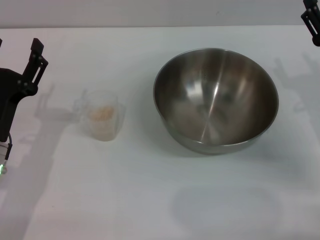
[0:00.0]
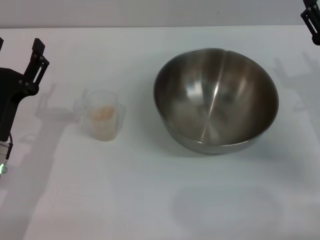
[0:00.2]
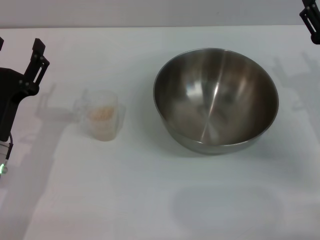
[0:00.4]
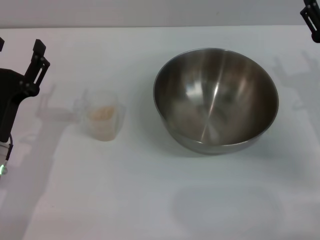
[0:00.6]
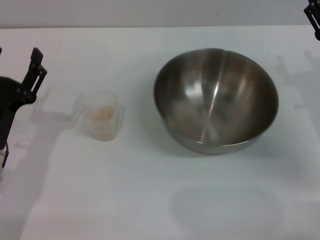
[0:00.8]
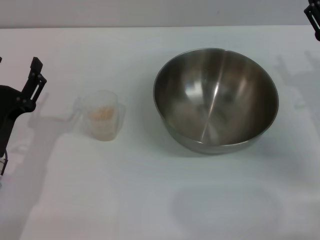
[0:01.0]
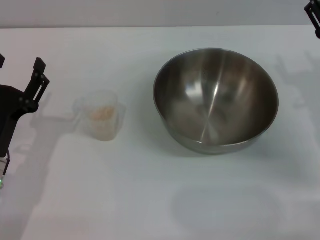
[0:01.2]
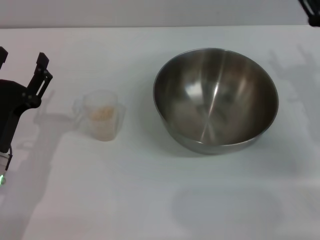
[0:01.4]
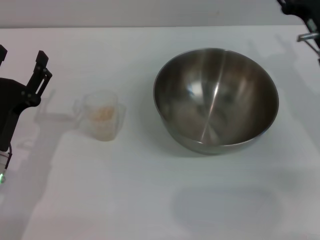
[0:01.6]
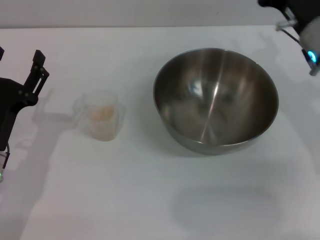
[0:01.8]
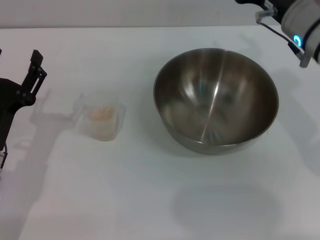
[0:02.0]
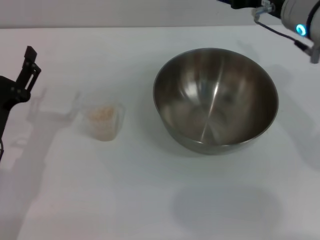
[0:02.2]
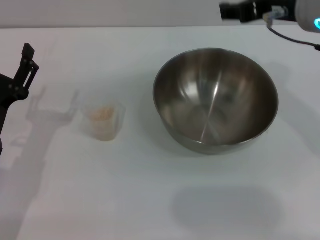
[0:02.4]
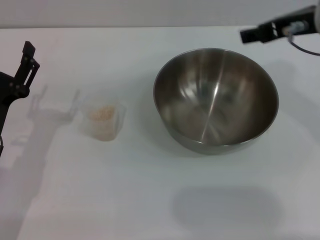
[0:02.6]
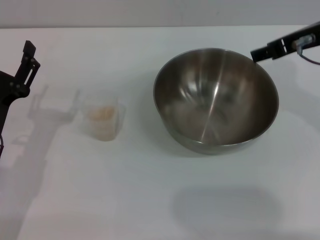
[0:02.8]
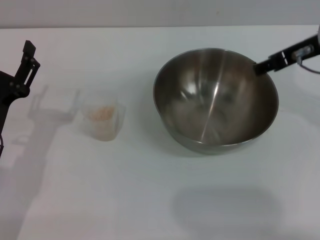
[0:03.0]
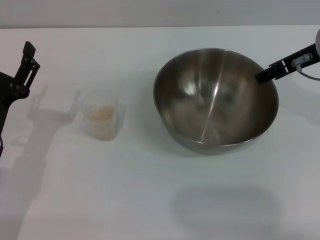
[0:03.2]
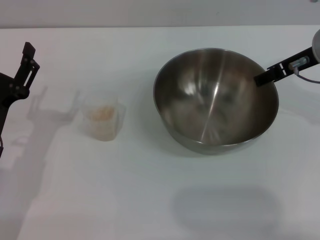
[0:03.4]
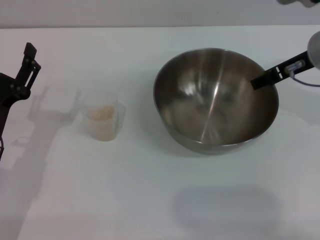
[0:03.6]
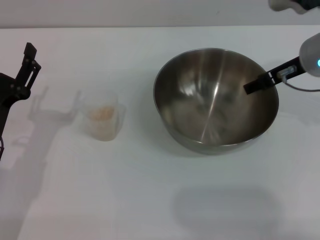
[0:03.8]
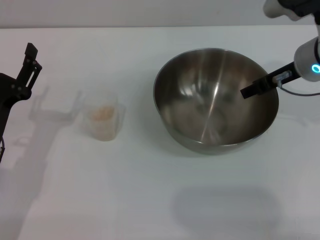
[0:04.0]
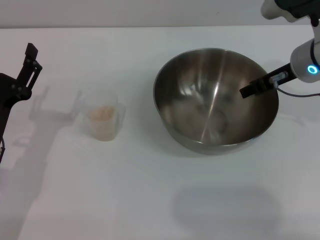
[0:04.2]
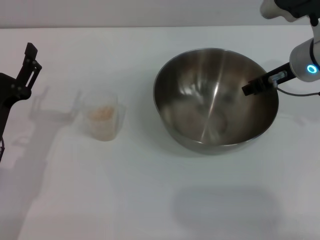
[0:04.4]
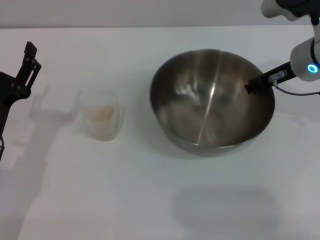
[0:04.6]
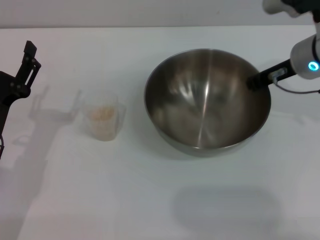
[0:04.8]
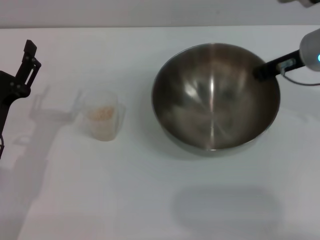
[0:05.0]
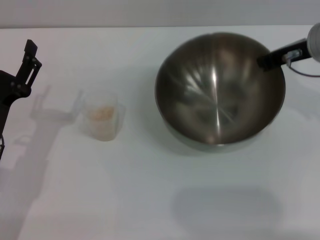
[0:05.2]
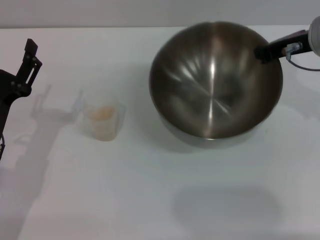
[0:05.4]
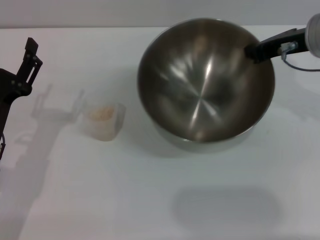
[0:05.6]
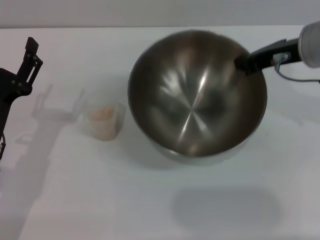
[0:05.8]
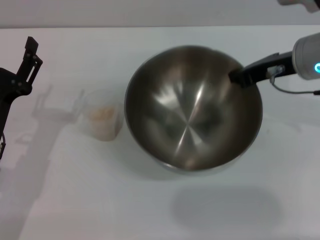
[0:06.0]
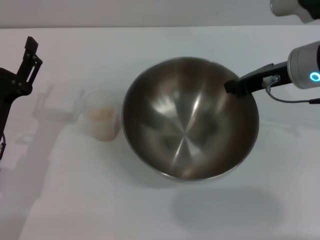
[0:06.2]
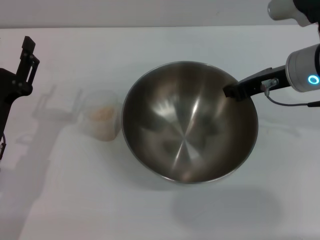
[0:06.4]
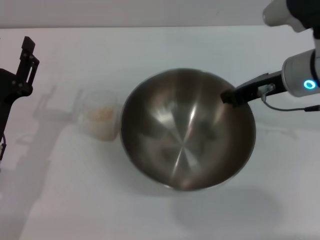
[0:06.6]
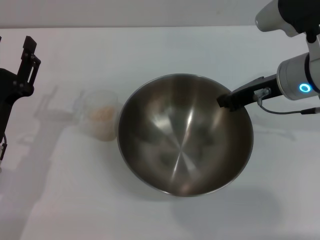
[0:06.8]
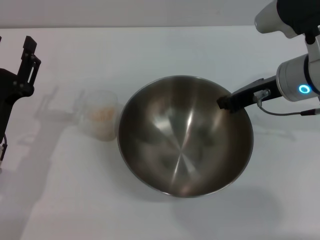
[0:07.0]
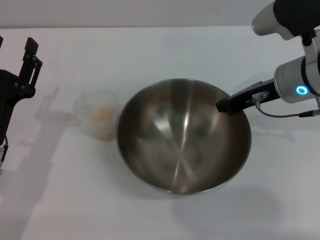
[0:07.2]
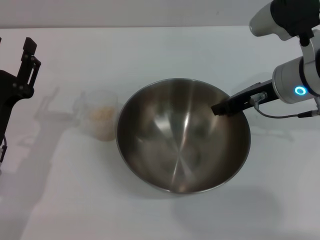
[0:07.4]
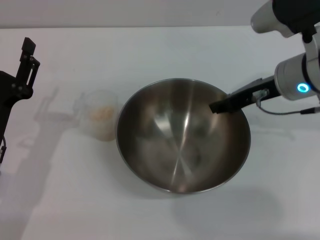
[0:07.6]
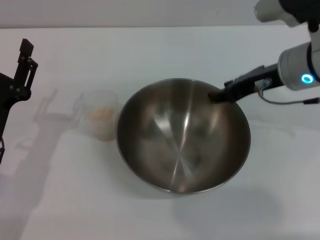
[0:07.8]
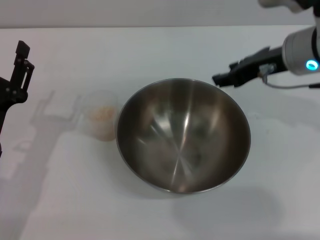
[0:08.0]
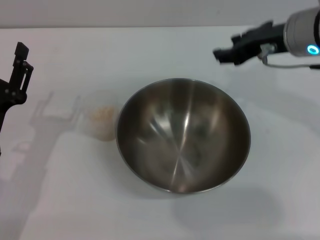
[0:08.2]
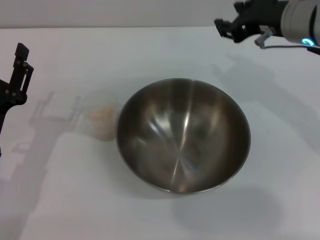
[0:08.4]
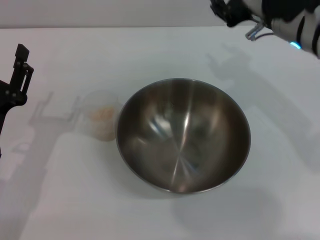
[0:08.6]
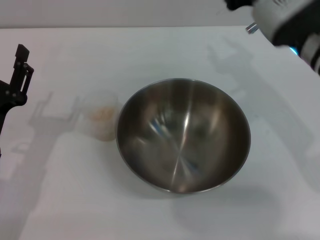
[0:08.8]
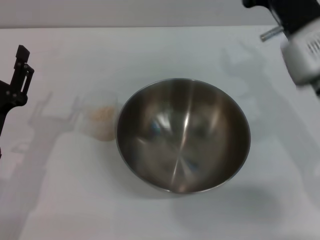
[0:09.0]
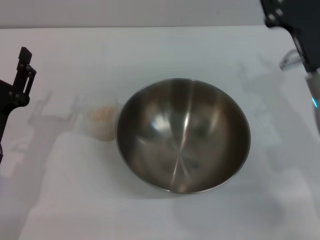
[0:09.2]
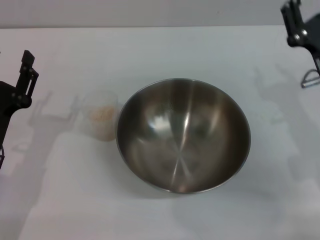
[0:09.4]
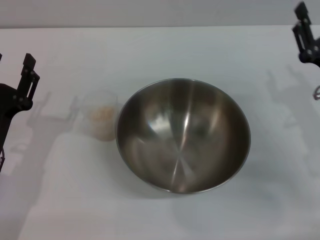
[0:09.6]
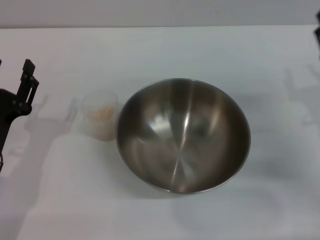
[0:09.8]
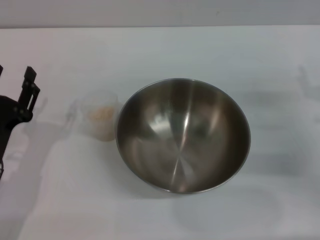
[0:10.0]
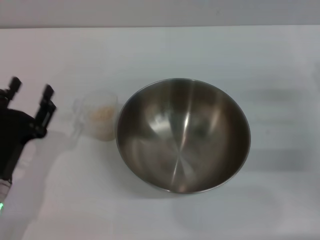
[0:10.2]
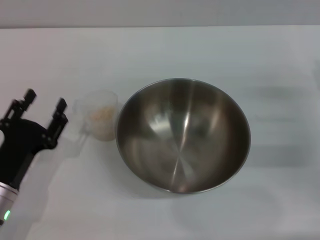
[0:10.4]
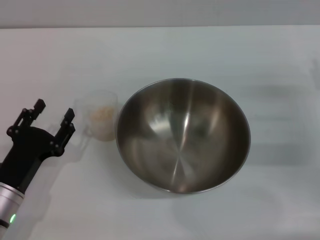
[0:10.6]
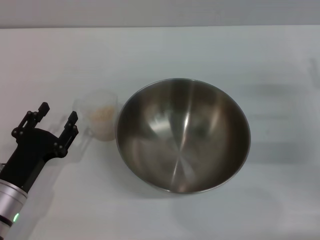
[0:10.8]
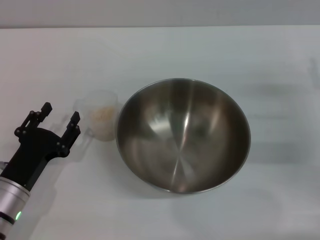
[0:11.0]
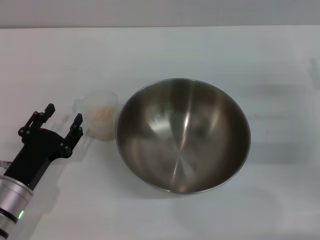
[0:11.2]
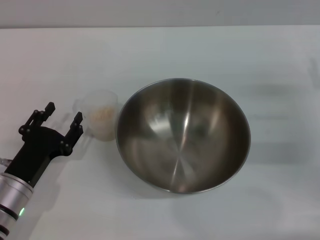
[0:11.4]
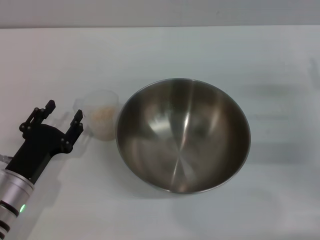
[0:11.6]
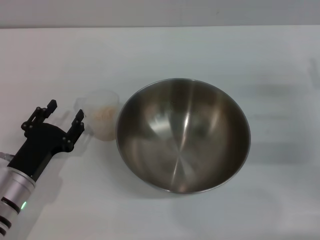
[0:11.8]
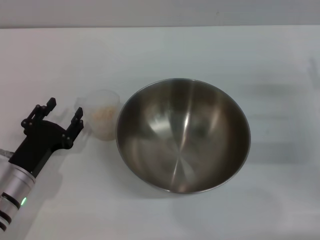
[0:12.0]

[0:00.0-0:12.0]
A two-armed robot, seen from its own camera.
Task of the whole recording: Place the bowl in the middle of the table with one hand and pour the rice from the grain cup into it with the other hand.
Step, 0:00.0 to 0:05.8: Pick up the bowl with the right gripper.
Step, 0:06.2 to 0:09.2: Place the bowl in the center of view with the right gripper.
0:00.0 to 0:01.6: The right gripper ends up approximately 5 cm from where it was.
0:01.6 to 0:03.0: The right gripper goes some 10 cm upward.
0:03.0 to 0:04.4: The right gripper is displaced downward by approximately 5 cm.
0:04.4 to 0:06.0: The right gripper closes its fingers.
0:07.6 to 0:09.0: The right gripper opens up.
0:09.0 to 0:10.4: The right gripper goes roughly 15 cm to the right and downward.
0:10.4 to 0:12.0: There are only small adjustments of the grippers.

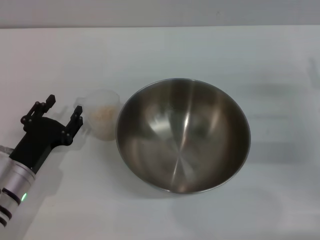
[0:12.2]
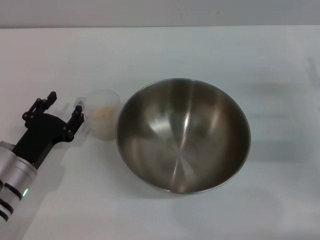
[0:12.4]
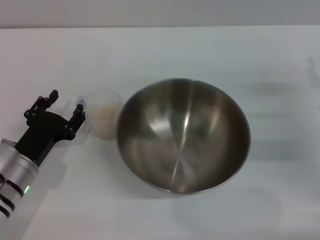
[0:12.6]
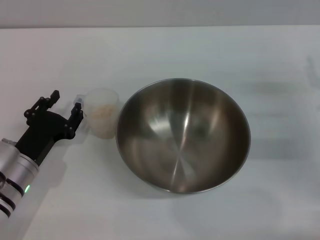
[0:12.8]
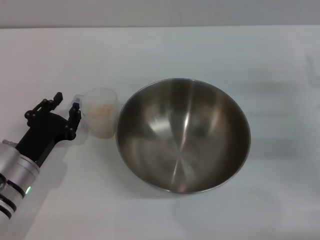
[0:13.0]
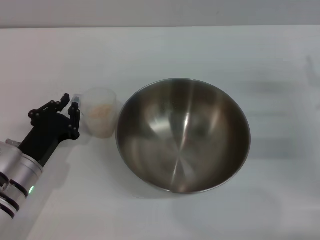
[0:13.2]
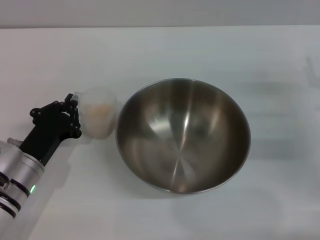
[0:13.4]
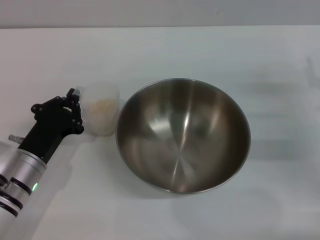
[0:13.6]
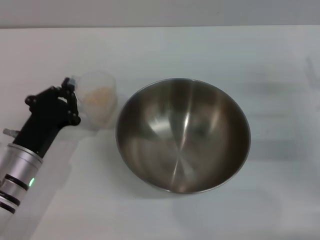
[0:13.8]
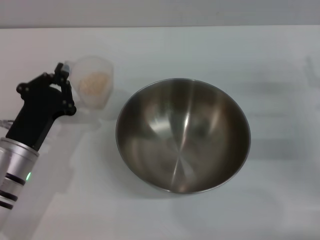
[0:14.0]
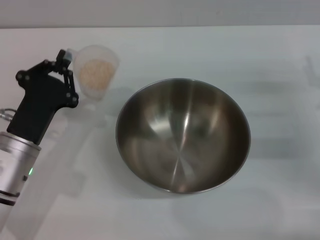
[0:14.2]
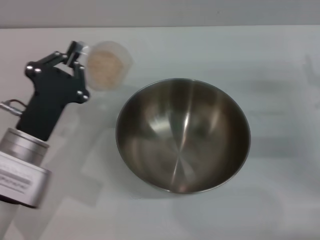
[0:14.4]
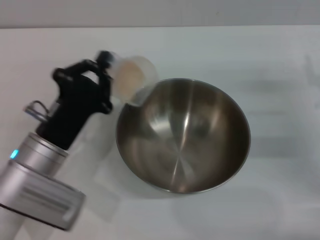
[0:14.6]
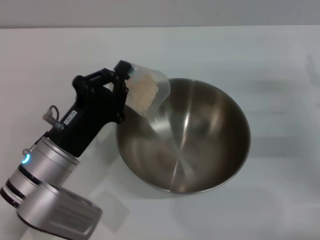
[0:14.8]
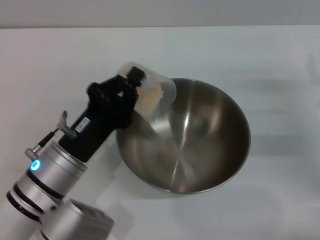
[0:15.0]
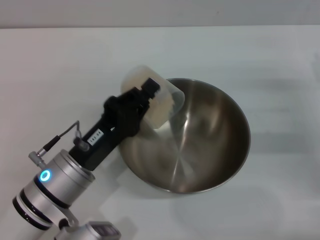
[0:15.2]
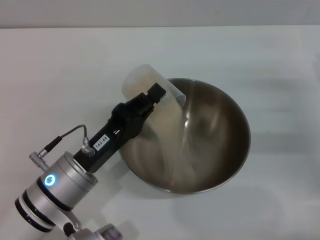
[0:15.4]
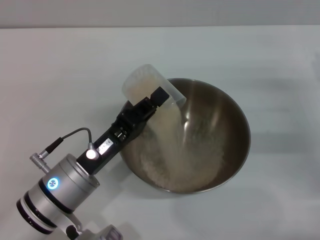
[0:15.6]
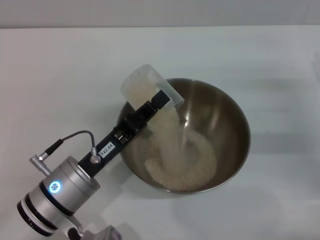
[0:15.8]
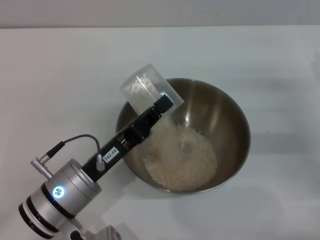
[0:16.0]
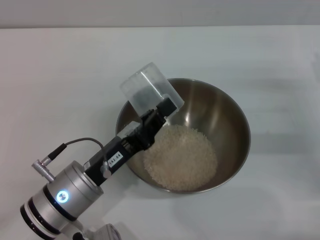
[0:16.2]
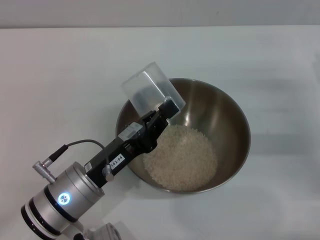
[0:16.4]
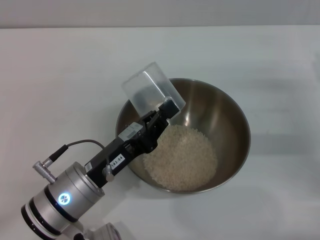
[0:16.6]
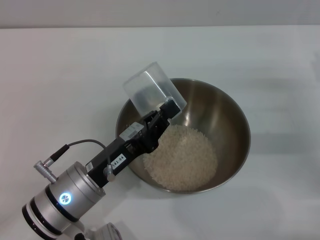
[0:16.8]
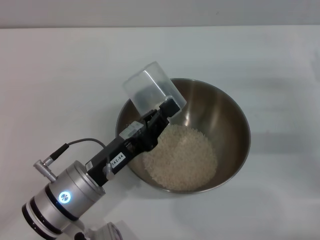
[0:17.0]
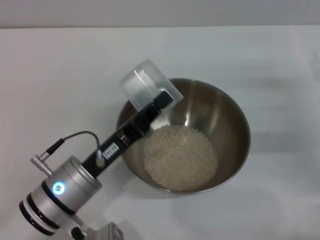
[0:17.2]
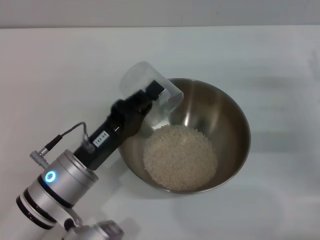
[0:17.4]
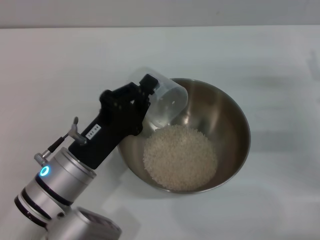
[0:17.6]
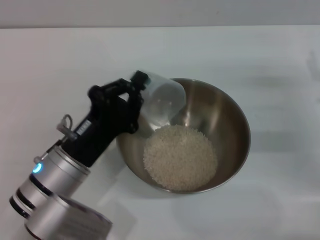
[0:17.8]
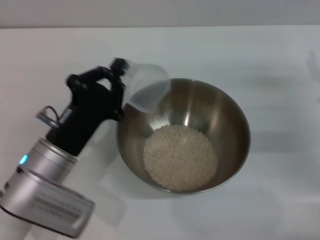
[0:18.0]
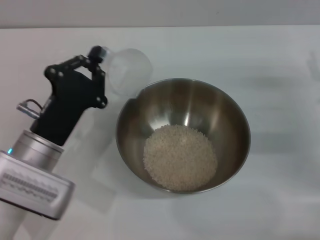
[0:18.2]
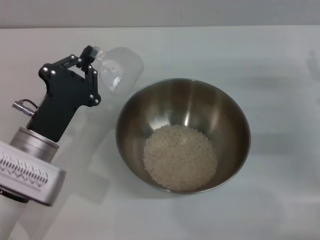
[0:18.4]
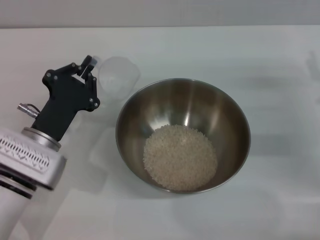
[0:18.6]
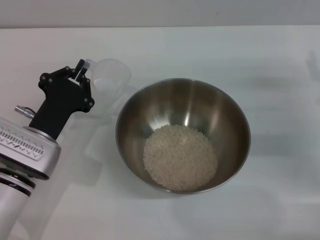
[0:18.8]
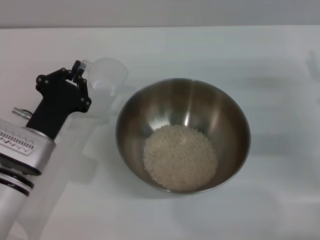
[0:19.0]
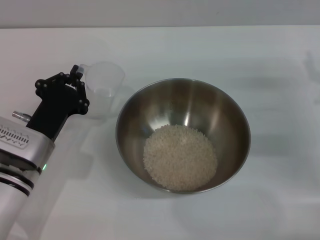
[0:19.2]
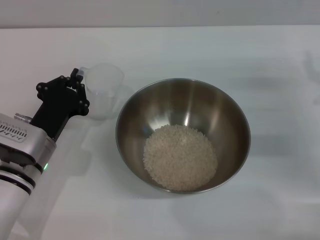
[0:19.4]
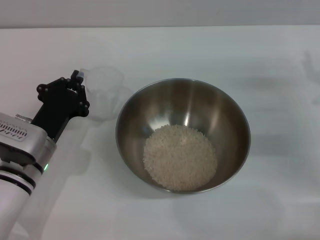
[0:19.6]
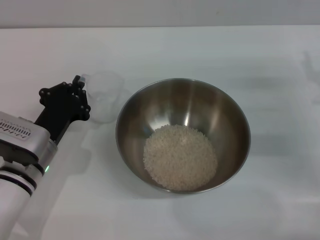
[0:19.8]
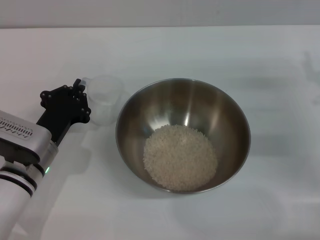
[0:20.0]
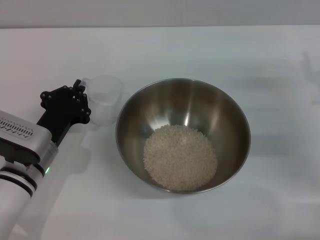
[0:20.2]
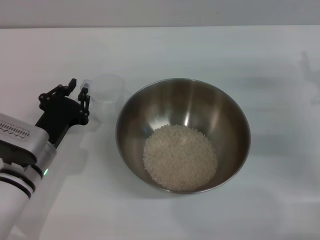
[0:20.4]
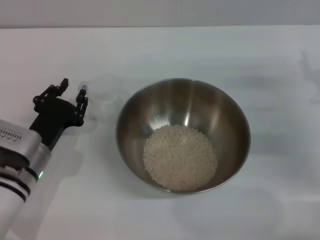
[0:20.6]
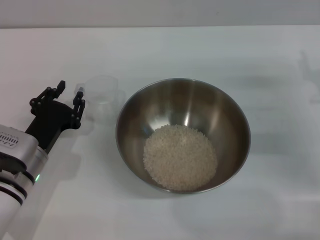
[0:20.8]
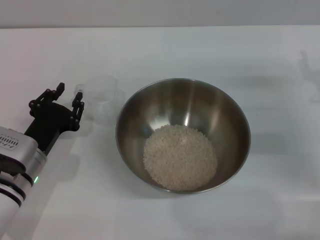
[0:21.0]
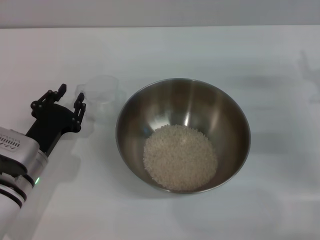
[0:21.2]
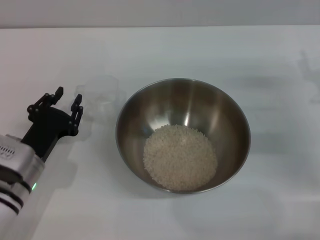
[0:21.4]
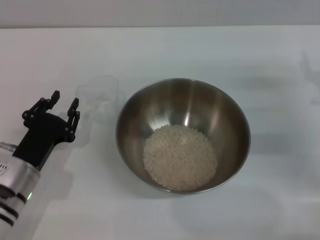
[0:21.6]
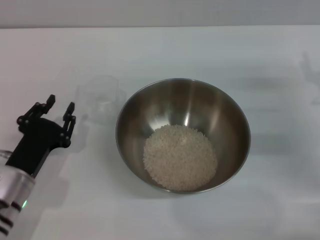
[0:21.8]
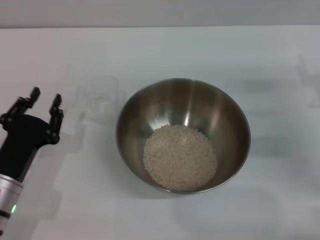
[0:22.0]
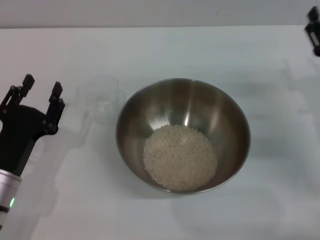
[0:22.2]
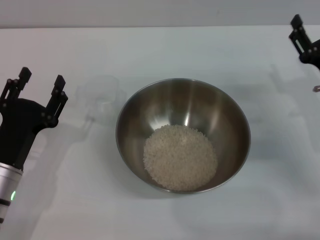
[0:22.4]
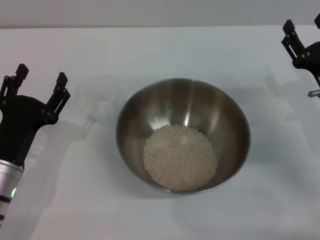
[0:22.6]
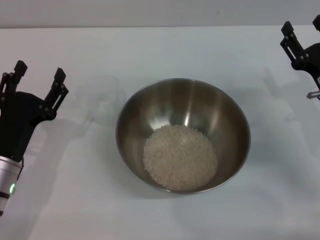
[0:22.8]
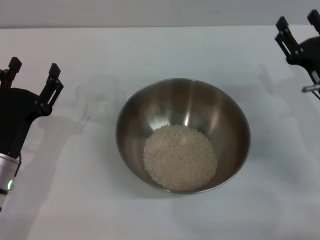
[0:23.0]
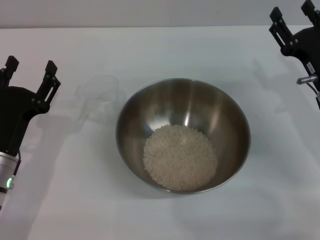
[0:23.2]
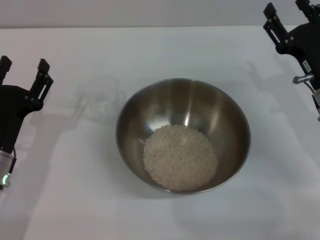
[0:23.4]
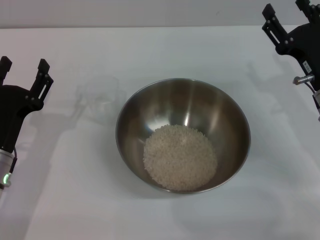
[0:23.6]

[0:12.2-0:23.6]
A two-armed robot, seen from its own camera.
Task of the whole recording: Place the bowl in the middle of the table with one hand and pour the rice from the grain cup into it with the other hand.
Step, 0:14.2 to 0:17.2: Pour the rice from the cup into the bowl with the left gripper.
Step, 0:17.4 to 0:21.4: Place the cup on the table with the left gripper.
0:12.2 to 0:13.6: The left gripper closes.
0:13.6 to 0:15.0: The left gripper is displaced to the right by approximately 5 cm.
0:17.8 to 0:19.4: The left gripper ends up approximately 5 cm from where it was.
0:19.4 to 0:20.8: The left gripper opens.
0:20.8 to 0:22.2: The left gripper is displaced backward by about 5 cm.
0:22.2 to 0:23.6: The left gripper opens up.
